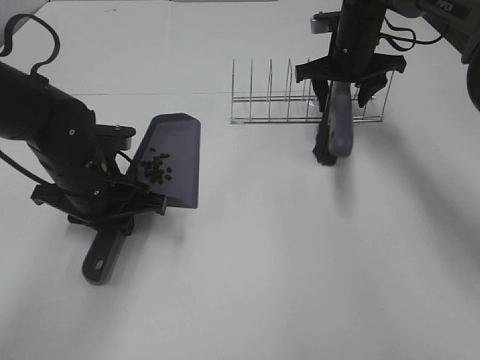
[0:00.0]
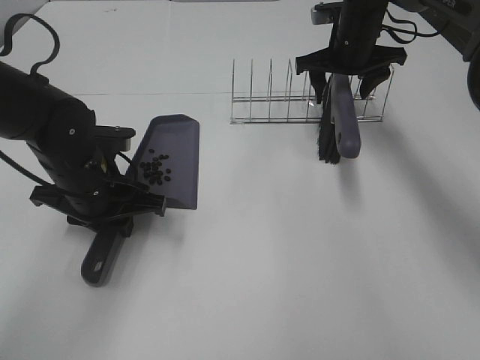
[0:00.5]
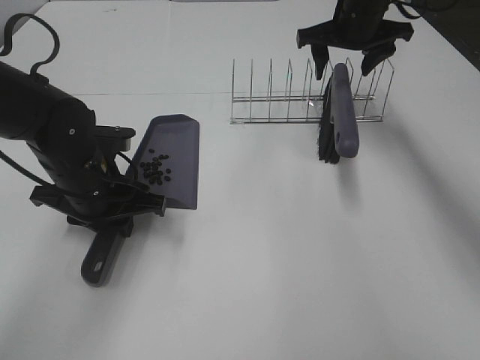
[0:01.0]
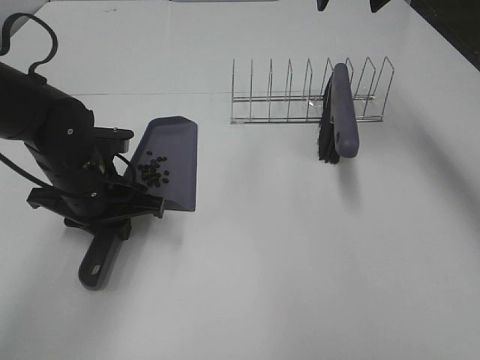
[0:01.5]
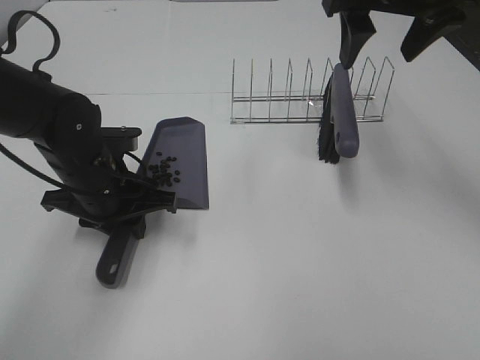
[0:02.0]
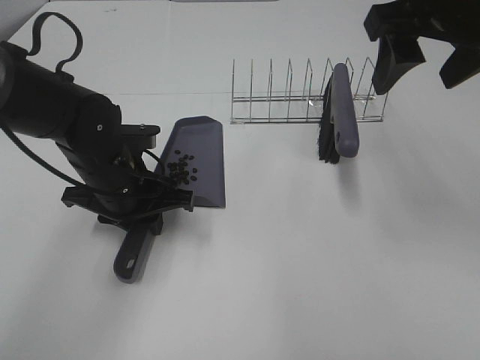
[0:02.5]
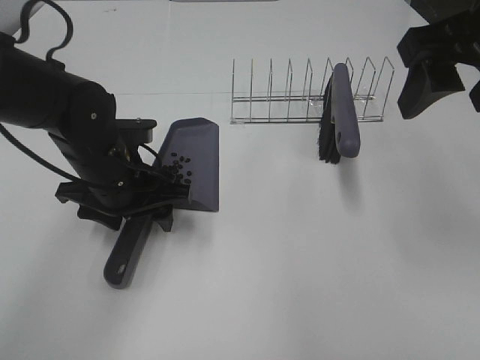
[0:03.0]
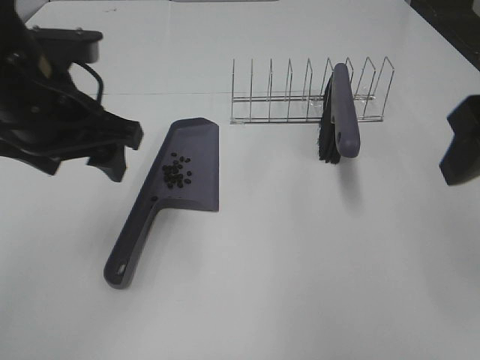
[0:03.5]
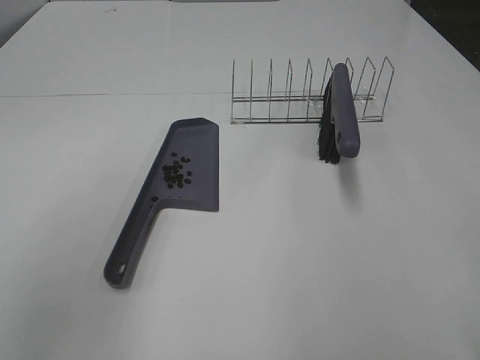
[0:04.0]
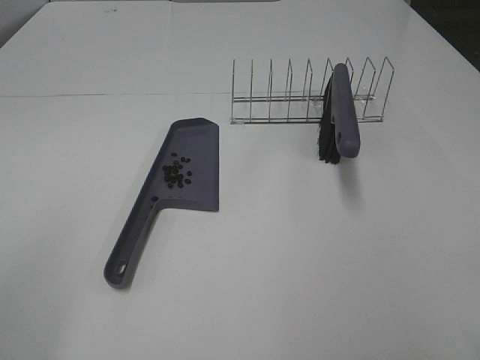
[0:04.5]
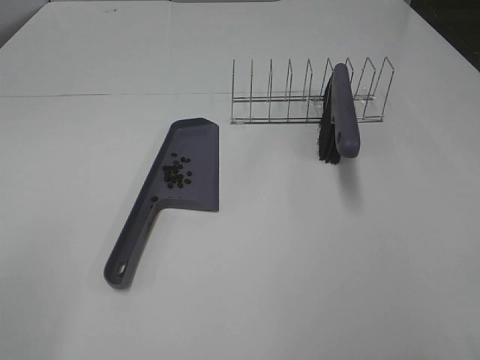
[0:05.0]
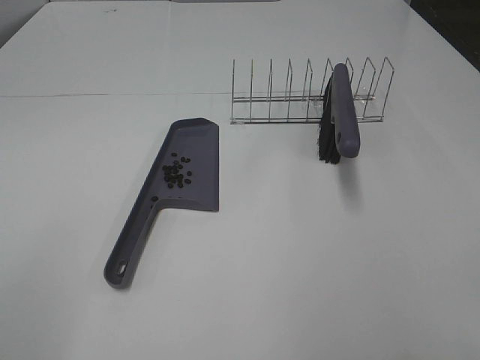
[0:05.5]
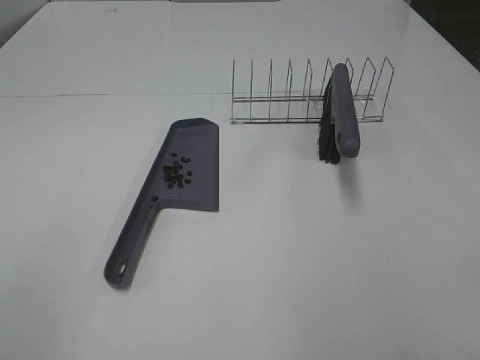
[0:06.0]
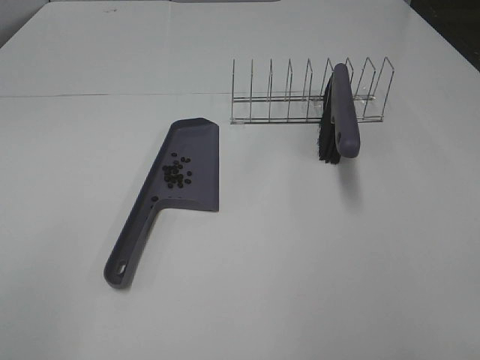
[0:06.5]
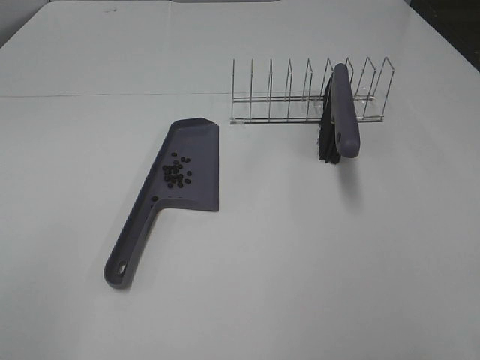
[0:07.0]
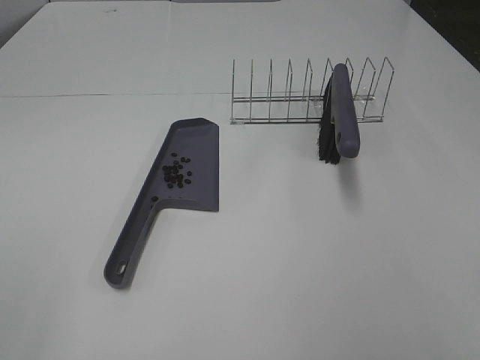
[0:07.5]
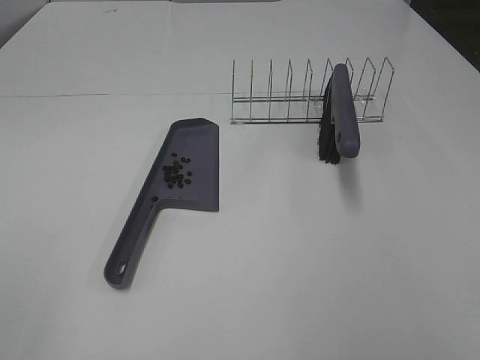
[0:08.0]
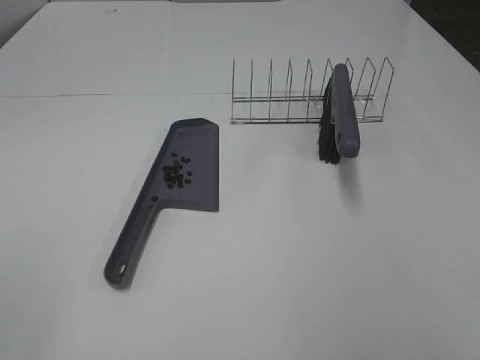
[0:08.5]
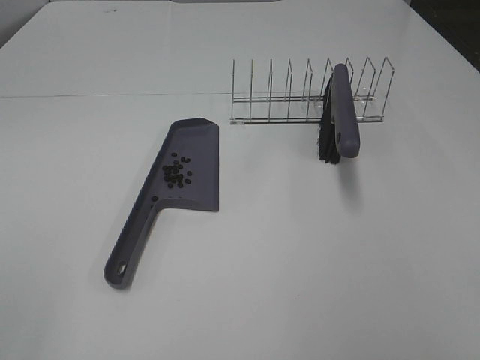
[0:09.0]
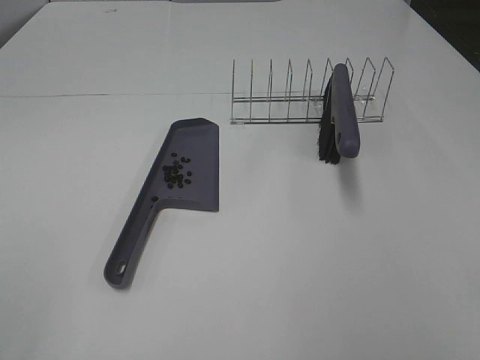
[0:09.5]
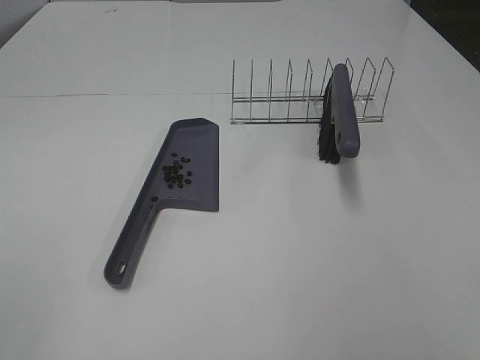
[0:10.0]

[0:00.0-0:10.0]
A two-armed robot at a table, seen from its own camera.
Task of the whole recording: Sweep Coffee Bean.
Step, 0:00.5 to 0:03.0: Left hand:place the dustpan on the table.
0:00.0 to 0:02.0: The right gripper is displaced upward and backward by roughly 20 cm.
0:02.0 to 0:04.0: The right gripper shifts about 25 cm backward. Meanwhile the left gripper shifts about 30 cm upward and backward, and opens.
0:04.0 to 0:06.0: The left gripper heads backward, downward and to the left, covering approximately 15 cm.
0:08.0 to 0:10.0: Neither gripper changes place.
